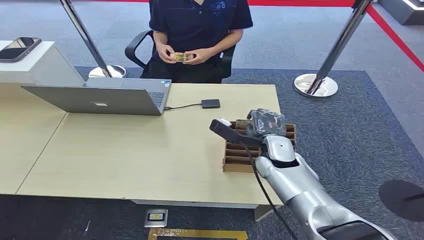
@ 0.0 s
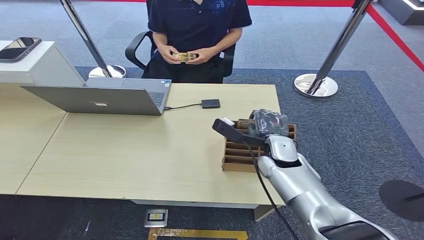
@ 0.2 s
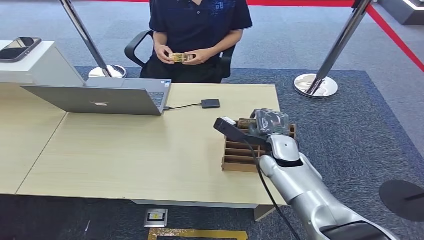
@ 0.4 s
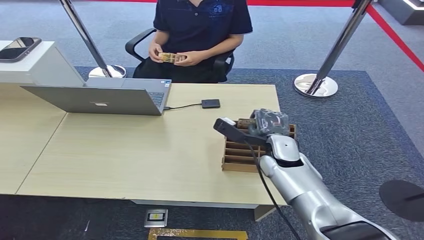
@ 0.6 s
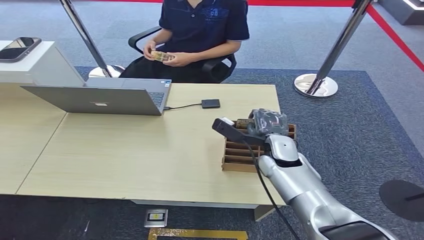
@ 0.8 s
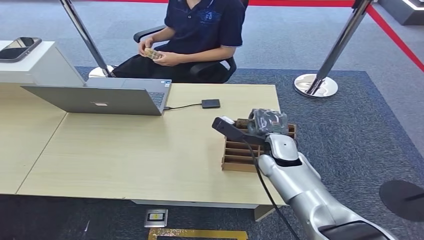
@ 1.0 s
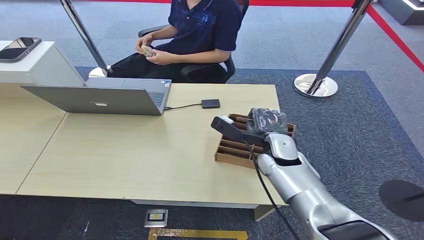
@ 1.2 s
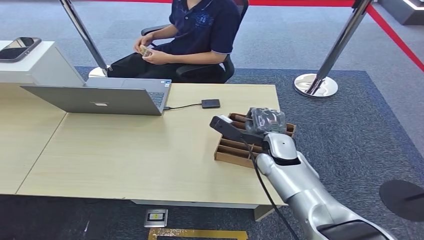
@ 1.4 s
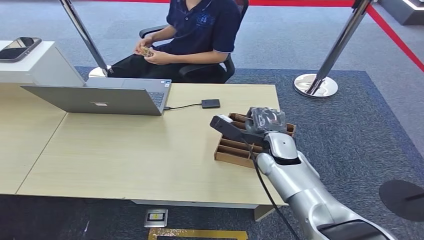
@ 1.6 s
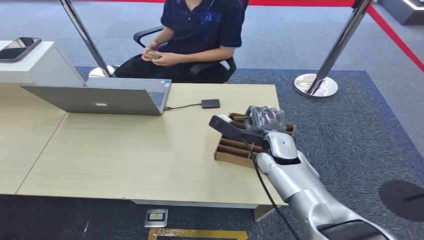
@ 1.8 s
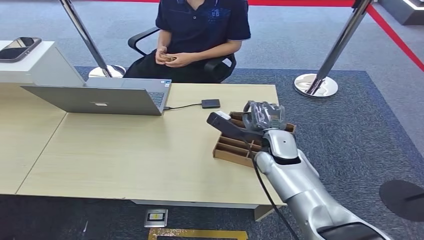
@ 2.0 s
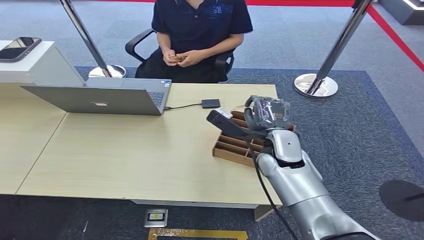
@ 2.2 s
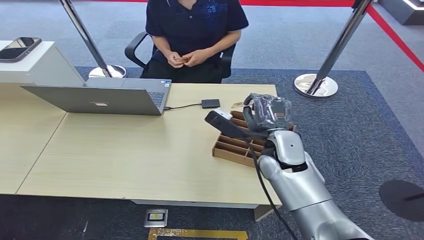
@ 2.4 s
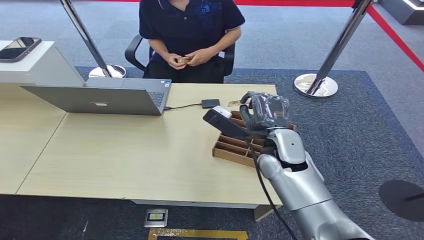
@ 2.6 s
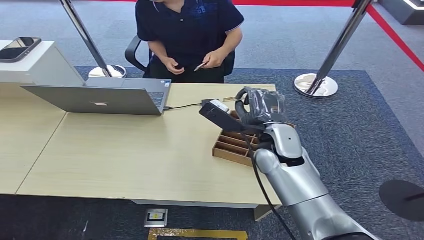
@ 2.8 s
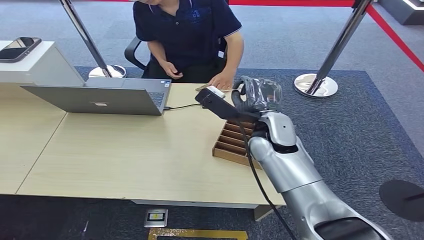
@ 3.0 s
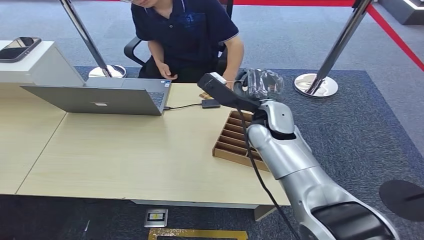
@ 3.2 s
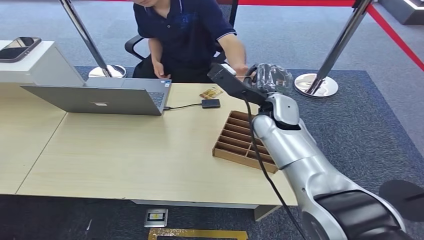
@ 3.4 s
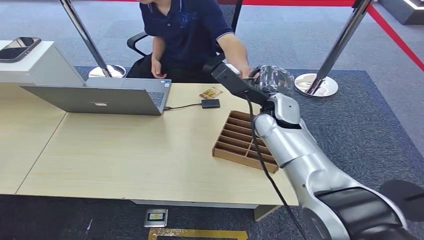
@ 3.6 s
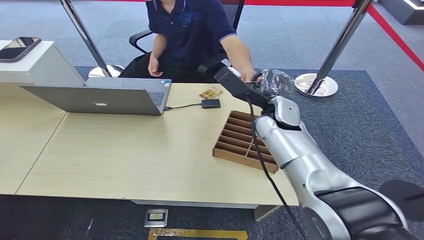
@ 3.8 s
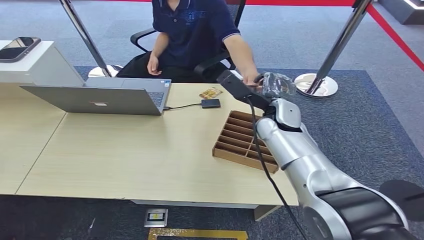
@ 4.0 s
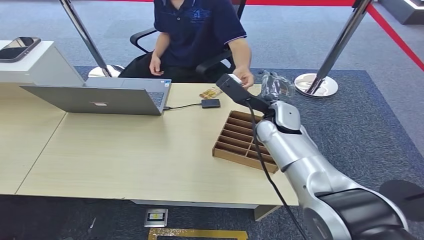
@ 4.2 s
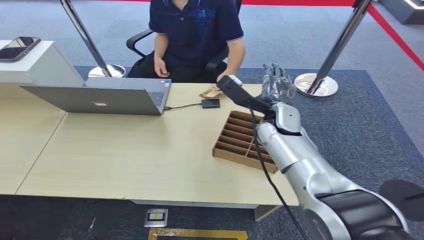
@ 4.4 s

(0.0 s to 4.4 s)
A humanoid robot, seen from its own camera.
Task of the whole recording: Pick up the card and hand it over to the target person.
Step, 0.0 s - 3.2 s: Pick up the key card from the card box.
Step, 3.4 s - 4.4 s: Hand the key card to the target.
1.4 s - 3.0 s: The right hand moves upward, about 10 cm.
3.0 s - 4.4 s: The right hand changes place by about 5 cm.
